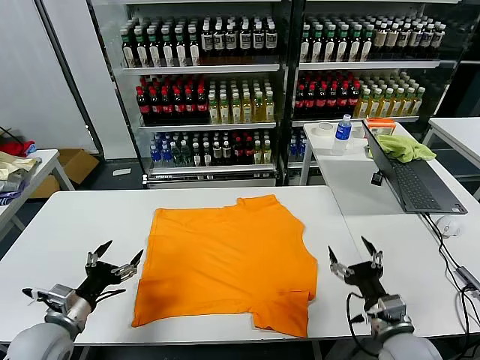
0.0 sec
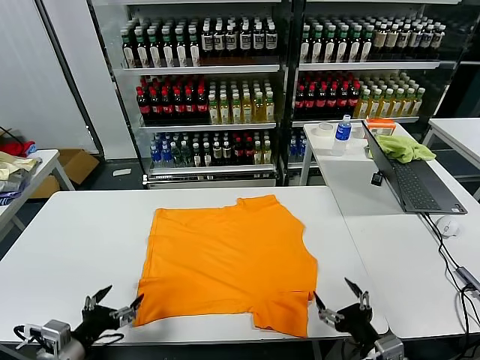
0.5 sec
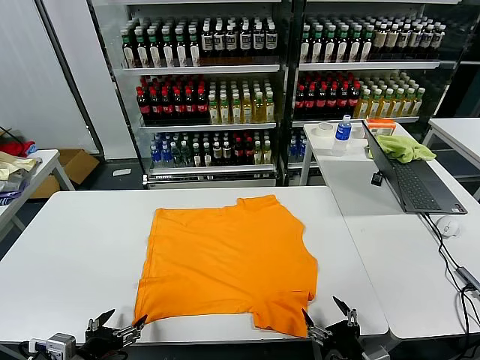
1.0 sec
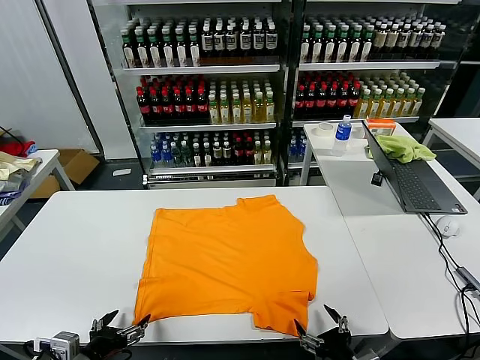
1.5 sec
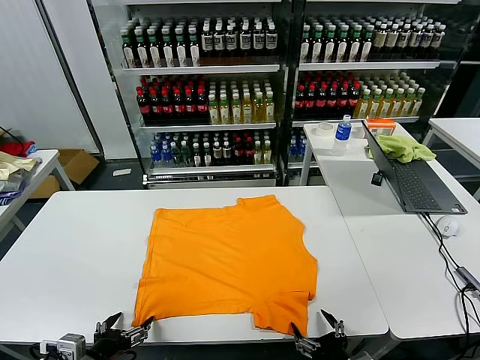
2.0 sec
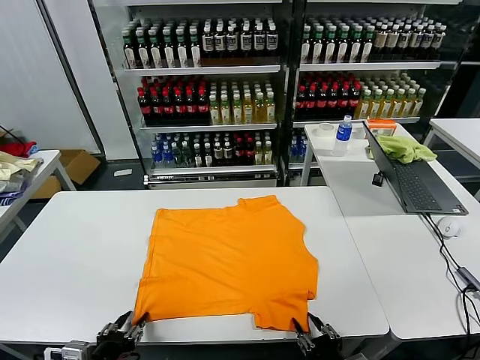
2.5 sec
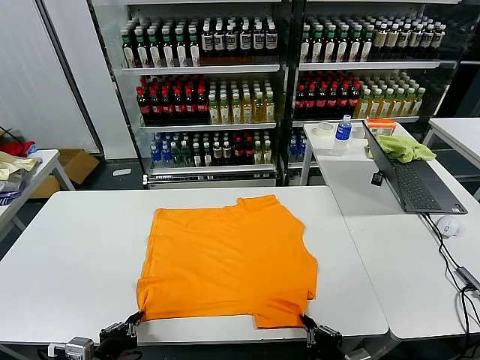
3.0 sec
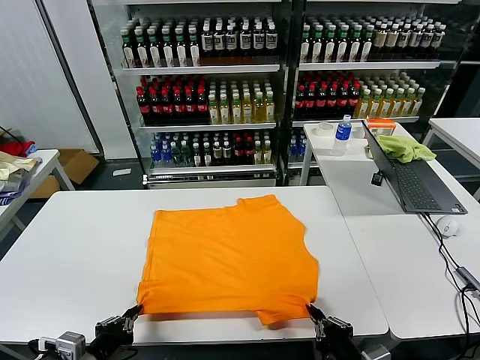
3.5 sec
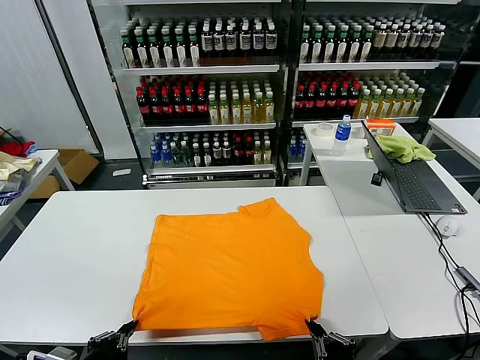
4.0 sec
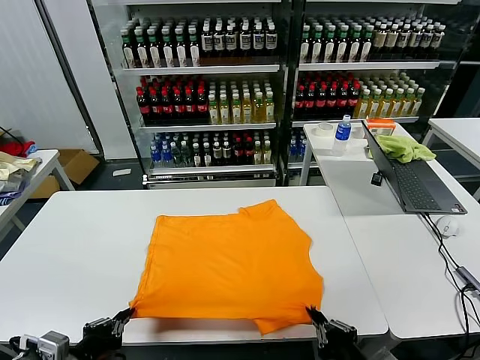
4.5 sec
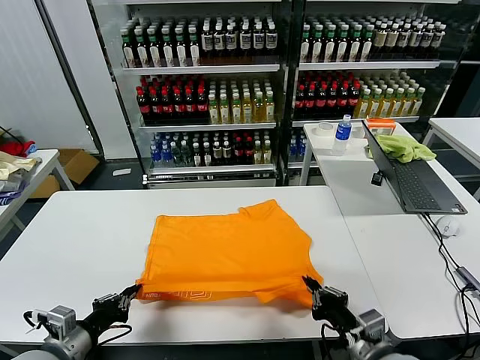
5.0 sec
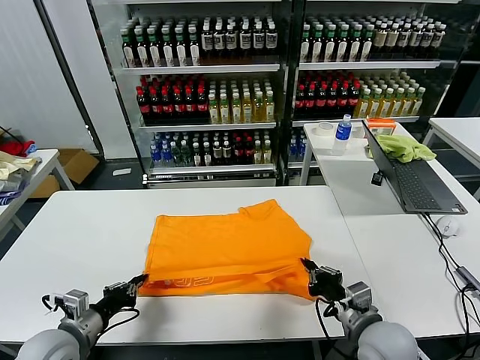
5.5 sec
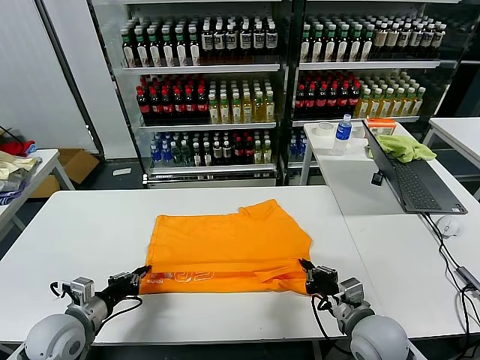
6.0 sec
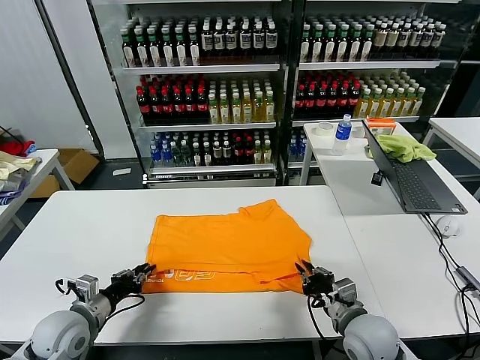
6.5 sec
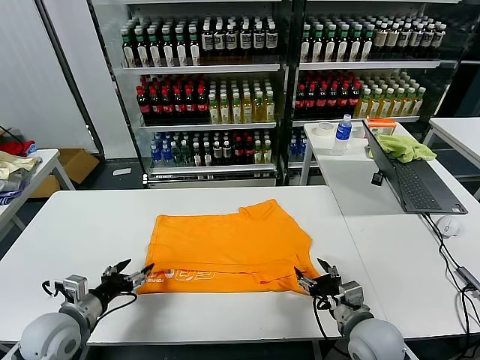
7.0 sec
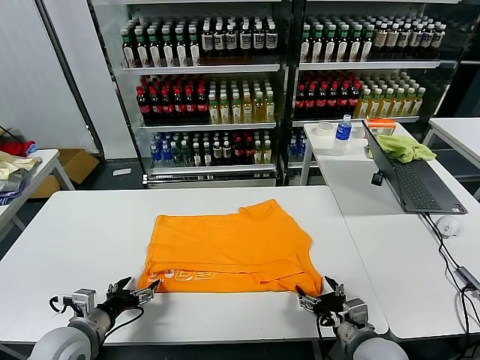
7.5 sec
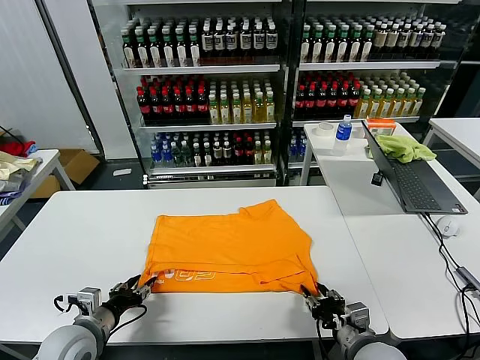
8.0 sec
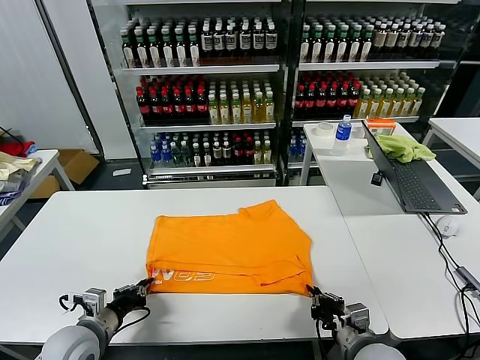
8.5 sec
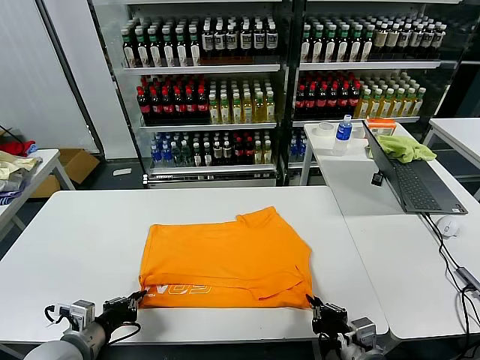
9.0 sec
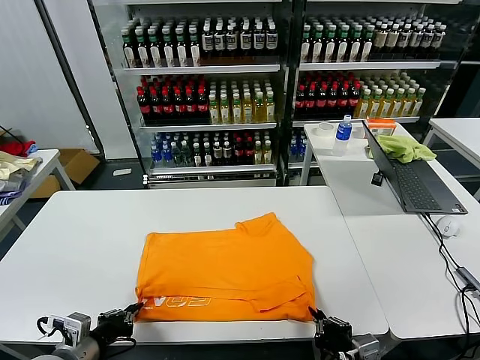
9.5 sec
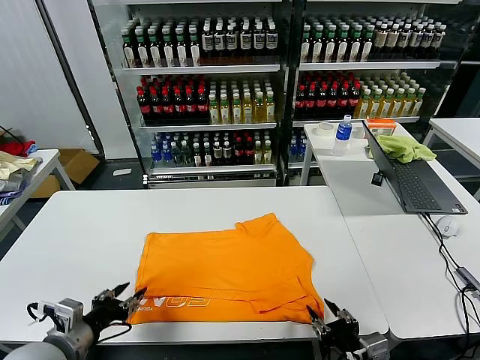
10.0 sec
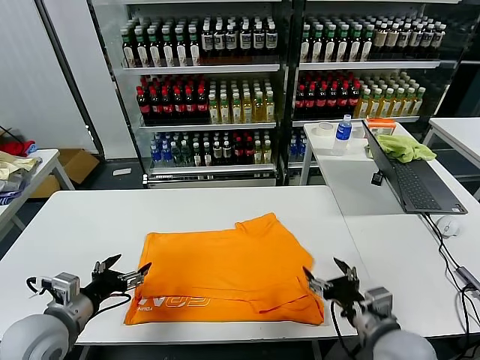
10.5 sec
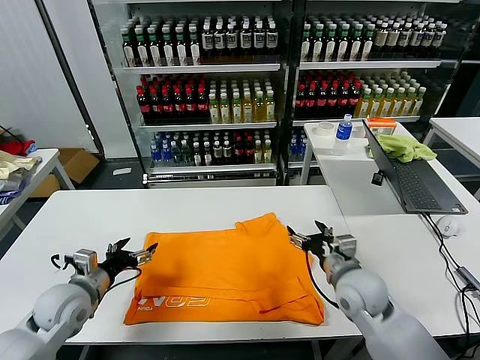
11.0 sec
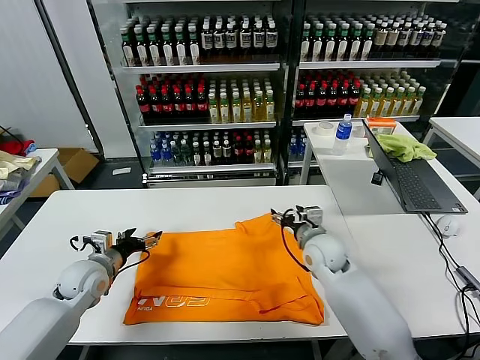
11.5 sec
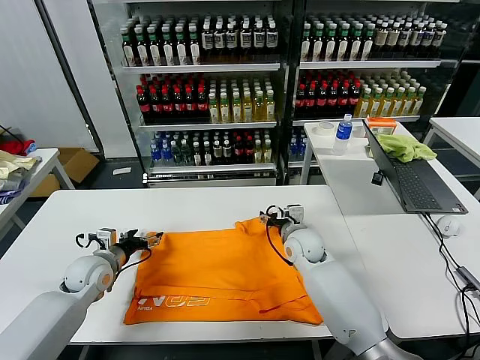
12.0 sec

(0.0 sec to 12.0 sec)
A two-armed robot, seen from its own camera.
Task of the whole recording: fold and organize the clothes.
Step, 0.0 sec - 2.5 sec: use both grippers simultaneously to clamp the lower edge of the clothing fabric.
Step, 3.0 sec - 6.5 sec: use both grippers to drag the lower edge of the fabric forward and fold it over the upper edge.
Step, 7.0 sec - 10.0 sec: Drag the clothes downward with both gripper.
2.0 sec - 4.0 sec: The left gripper shifts by some 5 cm, and closes its fingers. The right gripper goes approximately 5 cm upward, and closes up.
4.0 sec - 6.0 sec: Both grippers travel together forward, some 15 cm.
6.0 sec - 8.0 sec: The left gripper opens. The right gripper opens.
8.0 sec - 10.0 sec: The right gripper heads backward and upward, covering some 10 cm, and closes and opens again. Meanwhile the left gripper moves upward, roughly 5 cm, and closes, then opens again.
10.0 sec - 12.0 sec: The left gripper shifts approximately 20 cm forward, and opens. Meanwhile the right gripper moves forward, roughly 35 cm.

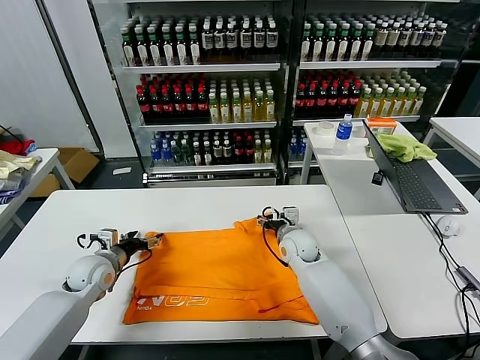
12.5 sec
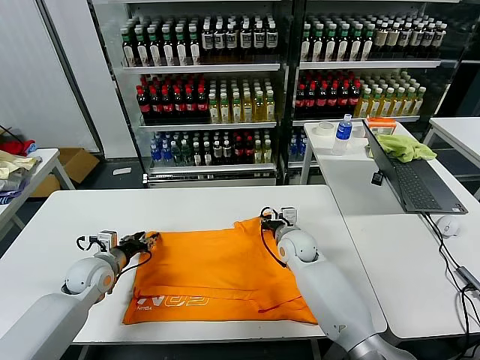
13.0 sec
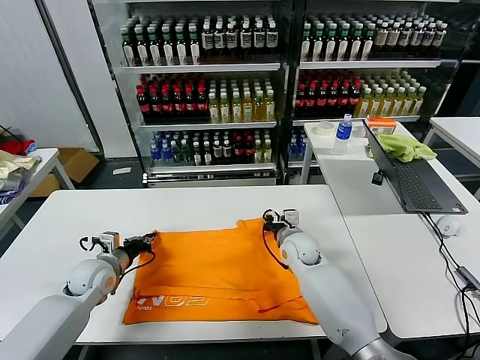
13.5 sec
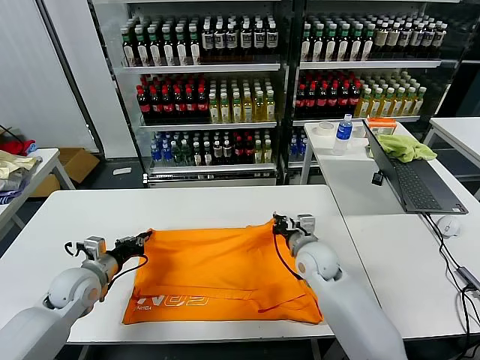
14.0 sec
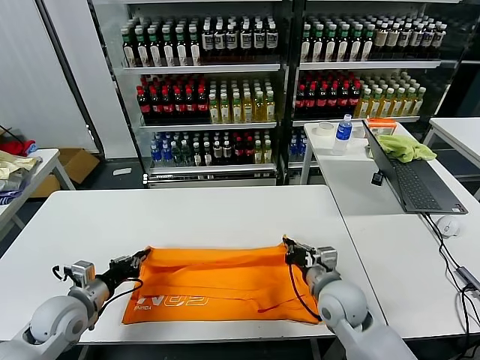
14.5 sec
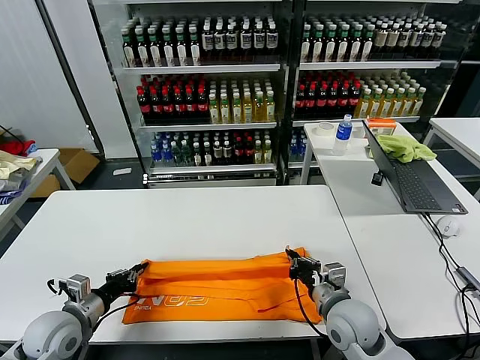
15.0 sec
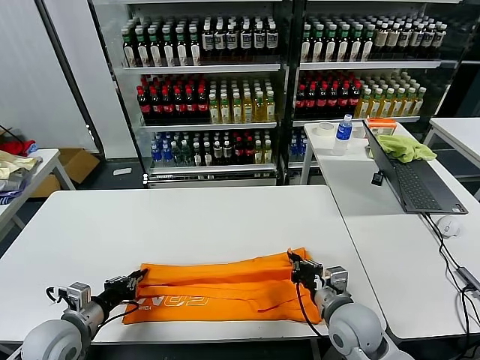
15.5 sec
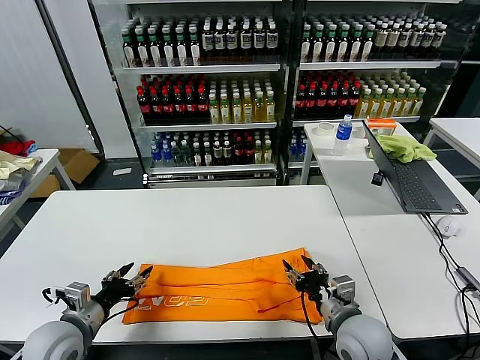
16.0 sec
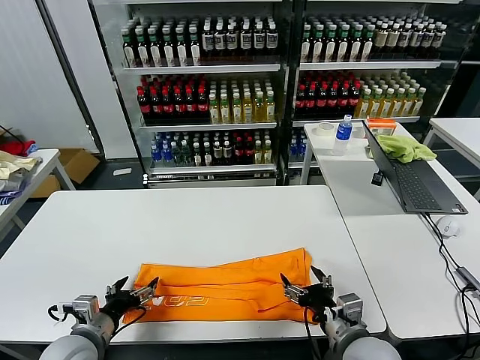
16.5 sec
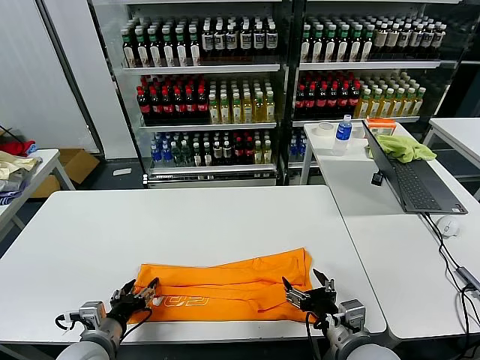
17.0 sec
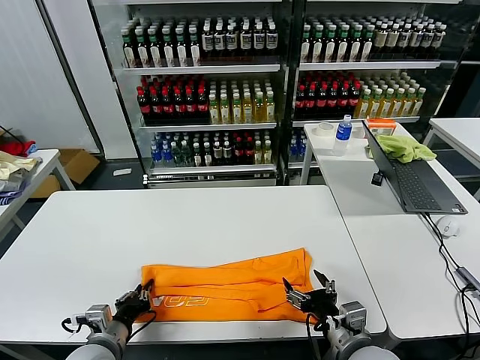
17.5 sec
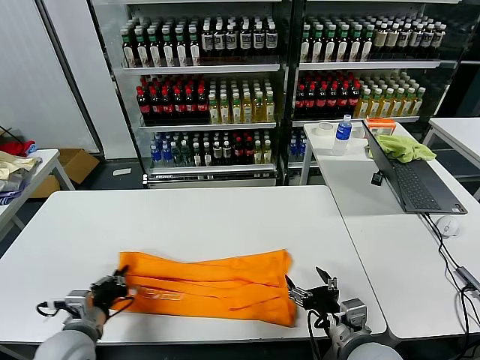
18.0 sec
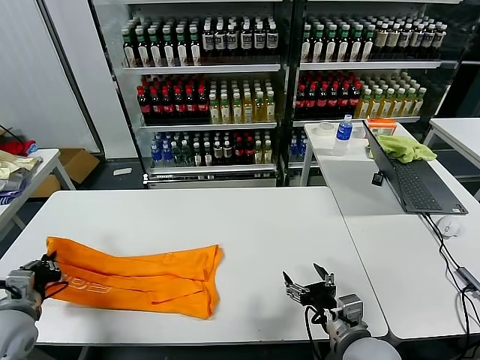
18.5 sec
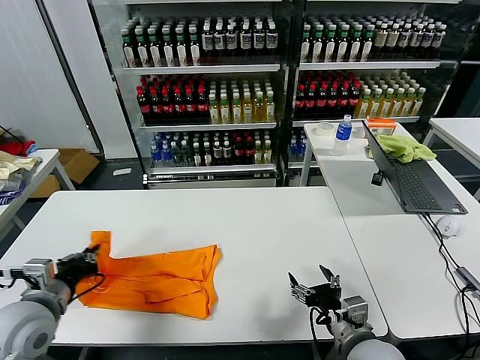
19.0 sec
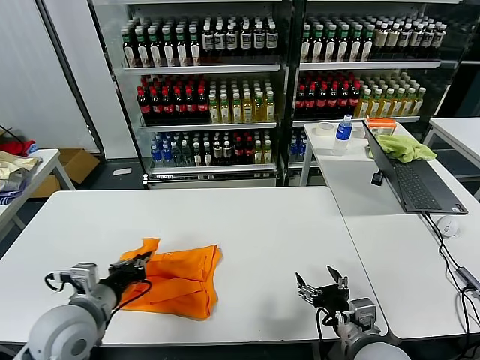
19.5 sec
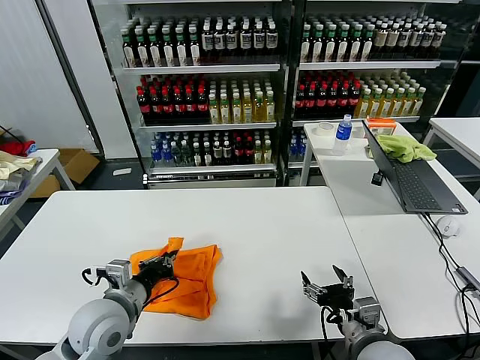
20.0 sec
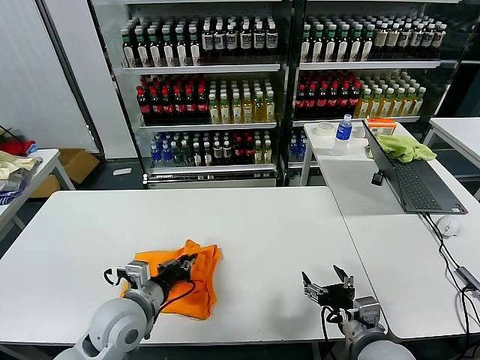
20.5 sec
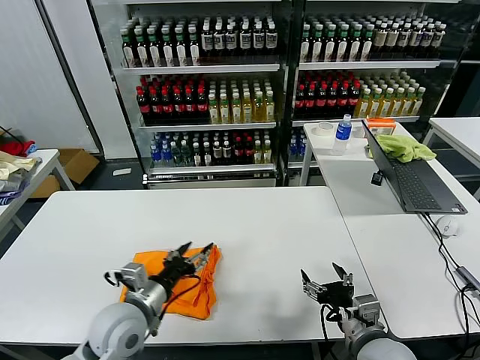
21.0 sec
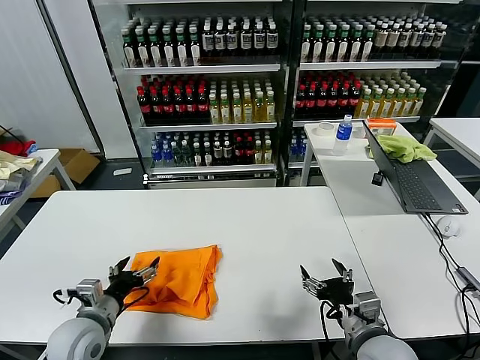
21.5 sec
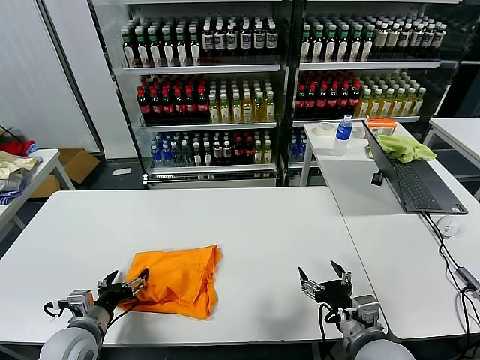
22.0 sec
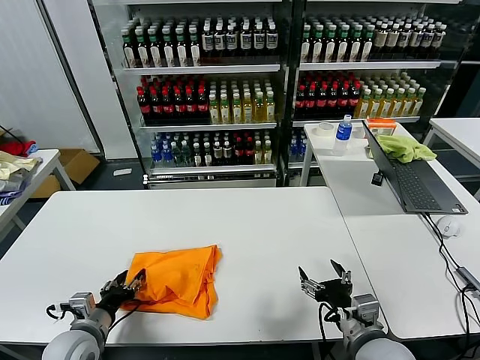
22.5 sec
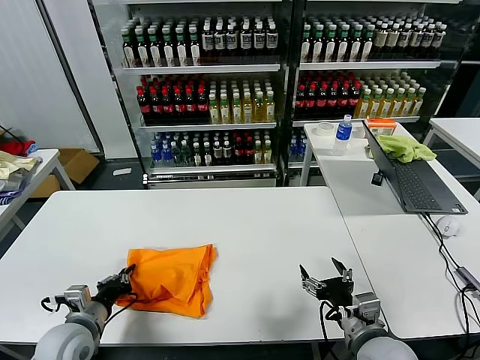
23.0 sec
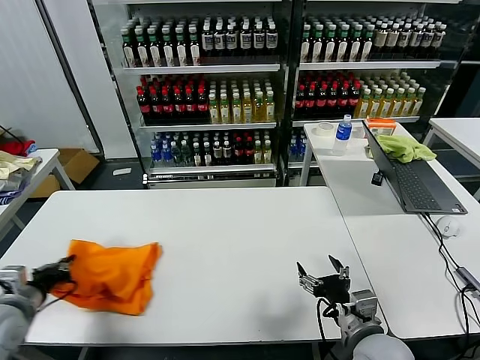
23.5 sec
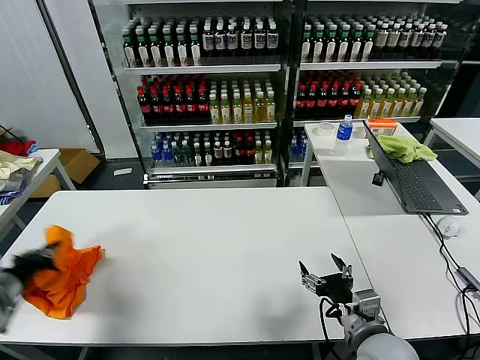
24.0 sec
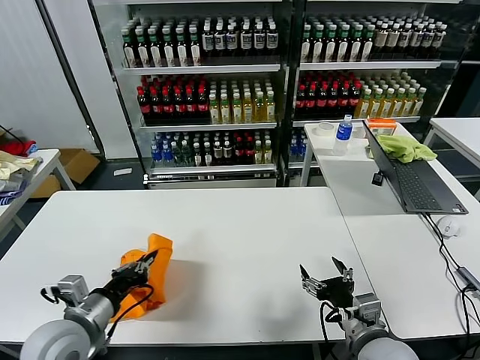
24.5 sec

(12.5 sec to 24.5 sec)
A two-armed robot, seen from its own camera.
Task of the whole recording: fold and organize the clothes.
Step, 13.5 sec - 15.5 sec: use both grippers to drag the upper edge of the fabric backward and fold it over the lower edge.
Step, 16.0 sec - 17.5 sec: use the left gripper to clamp the left edge of the fabric.
Step, 18.0 sec - 20.5 sec: use the left gripper to drag the left edge of the fabric to the left and folds it over the right edge.
12.5 sec - 14.5 sec: Both grippers move backward, about 15 cm. The right gripper closes. The left gripper closes up.
14.5 sec - 16.5 sec: The left gripper is displaced backward by roughly 5 cm, and opens up, while the right gripper heads backward, covering roughly 10 cm, and opens.
16.5 sec - 18.5 sec: The left gripper heads to the left, covering roughly 10 cm, and closes up.
18.5 sec - 20.5 sec: The left gripper goes roughly 20 cm to the right.
20.5 sec - 22.5 sec: The left gripper moves to the left and downward, some 15 cm, and opens.
22.5 sec - 24.5 sec: The left gripper travels upward by about 10 cm, travels to the left and back again, approximately 15 cm each way, and closes its fingers.

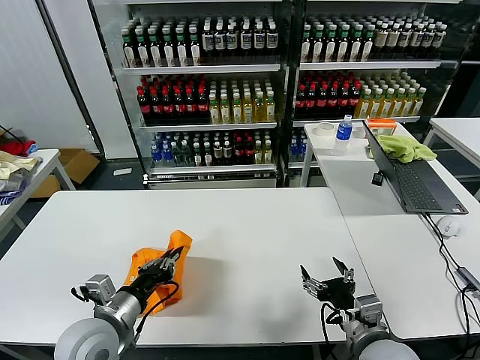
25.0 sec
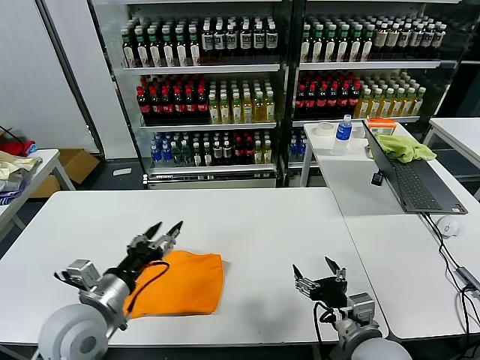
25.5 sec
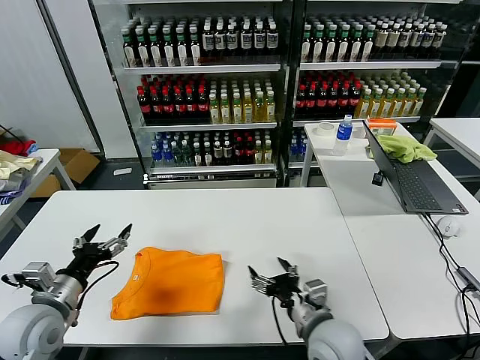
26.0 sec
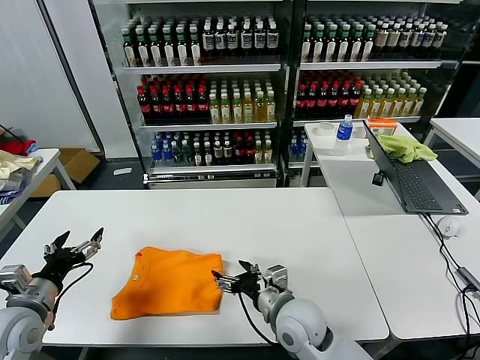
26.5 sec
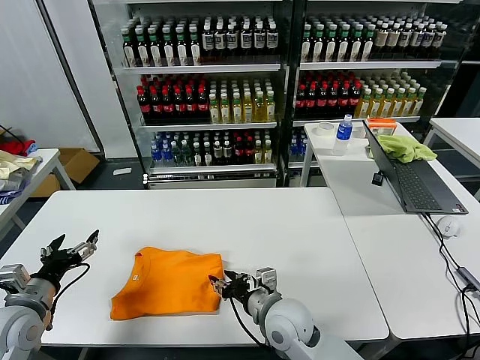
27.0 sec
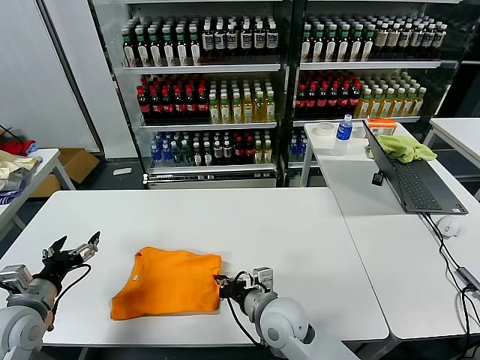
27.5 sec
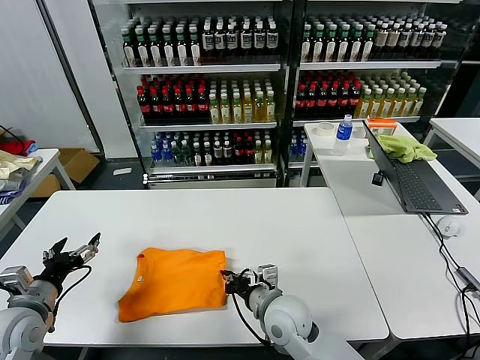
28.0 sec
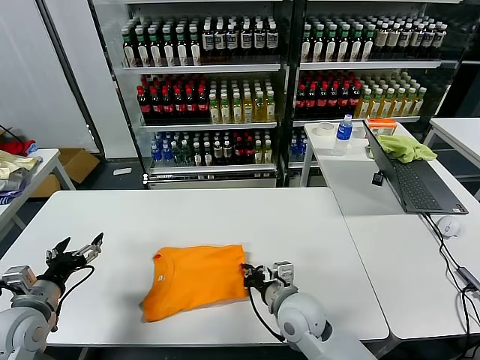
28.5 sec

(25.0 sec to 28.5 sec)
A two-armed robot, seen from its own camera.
Task of the whole recording: fold and organize the clothes.
25.0 sec - 27.0 sec: The left gripper is displaced to the left by some 15 cm, and opens; the right gripper heads to the left and forward, covering some 20 cm.
27.0 sec - 28.5 sec: The right gripper closes up.
